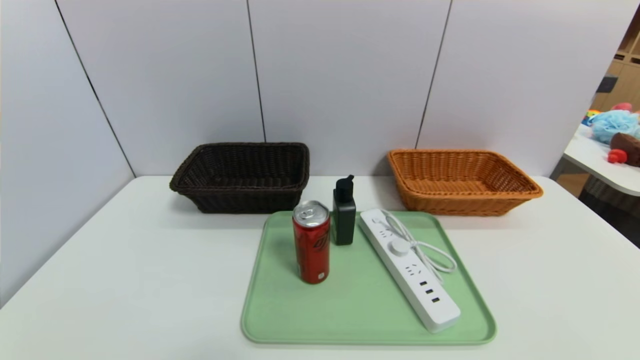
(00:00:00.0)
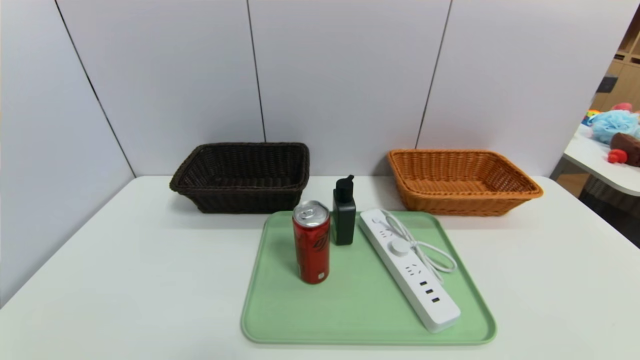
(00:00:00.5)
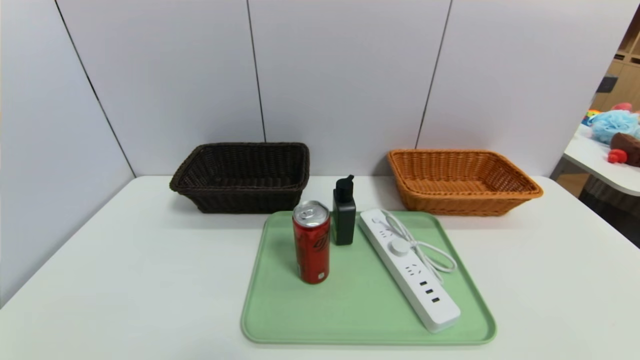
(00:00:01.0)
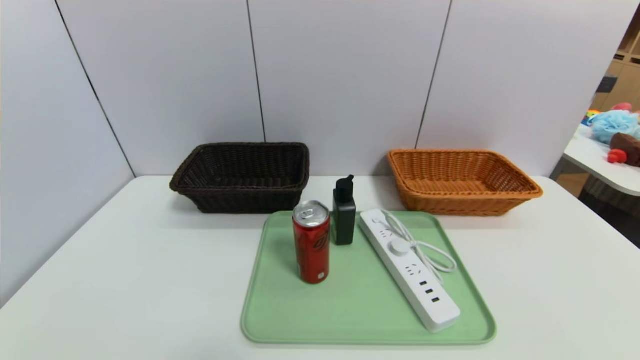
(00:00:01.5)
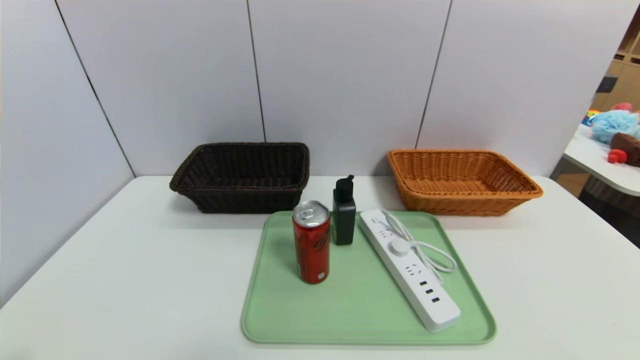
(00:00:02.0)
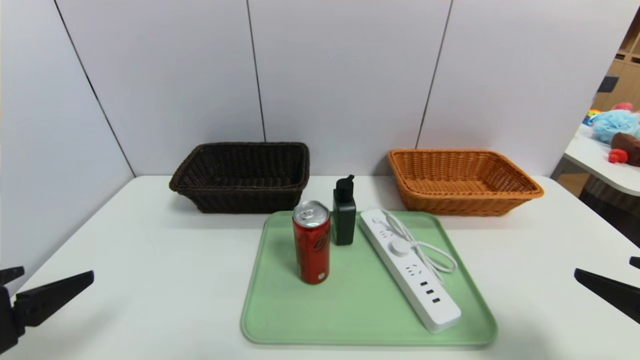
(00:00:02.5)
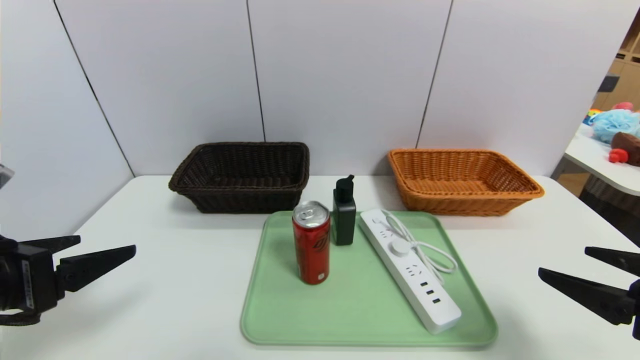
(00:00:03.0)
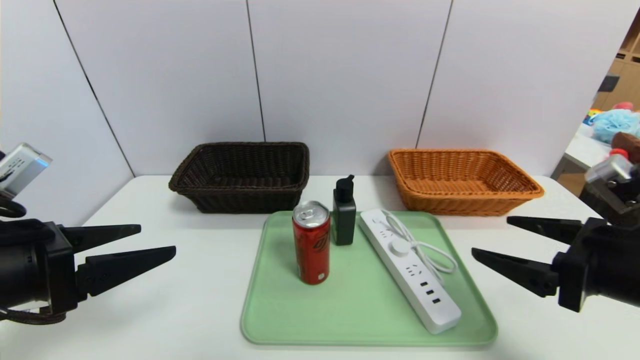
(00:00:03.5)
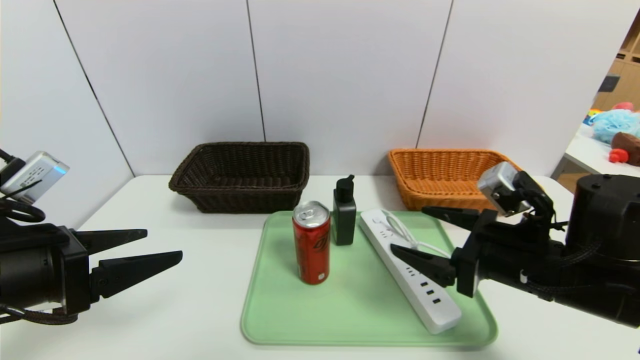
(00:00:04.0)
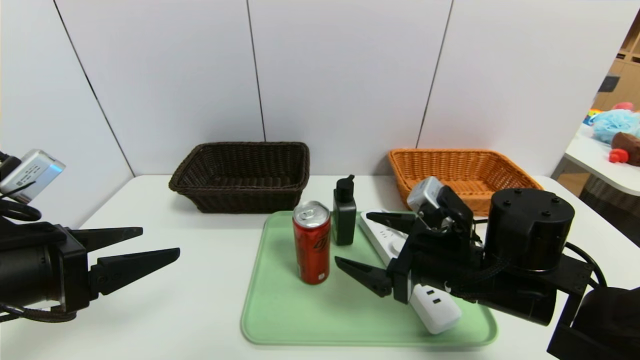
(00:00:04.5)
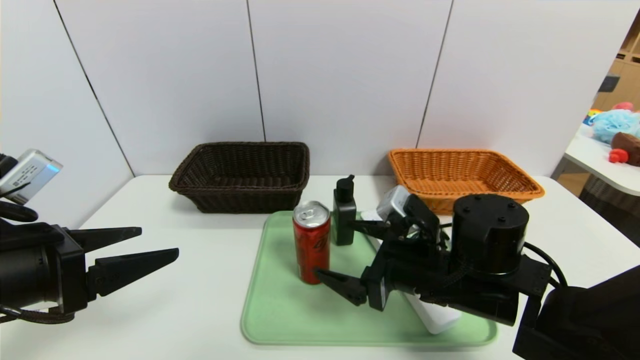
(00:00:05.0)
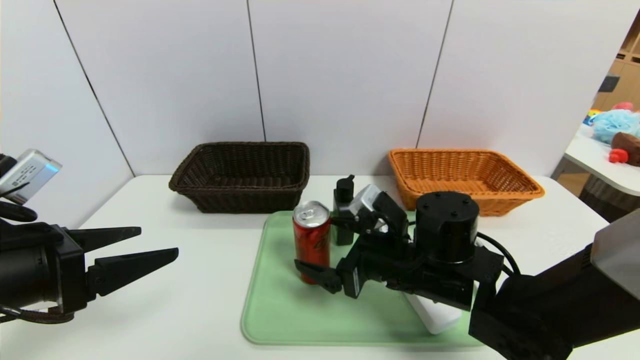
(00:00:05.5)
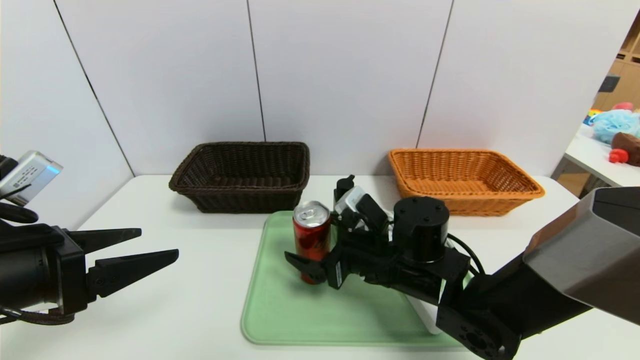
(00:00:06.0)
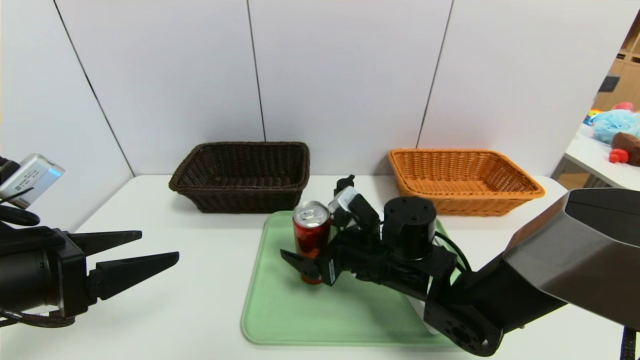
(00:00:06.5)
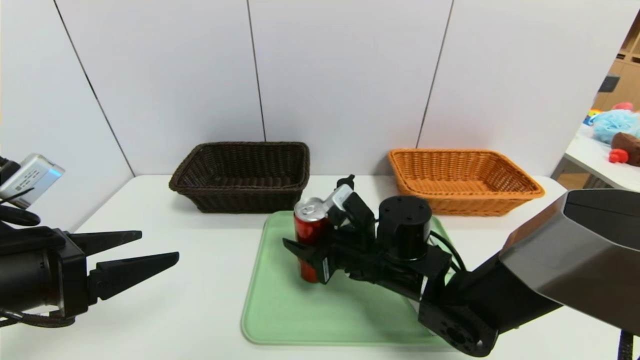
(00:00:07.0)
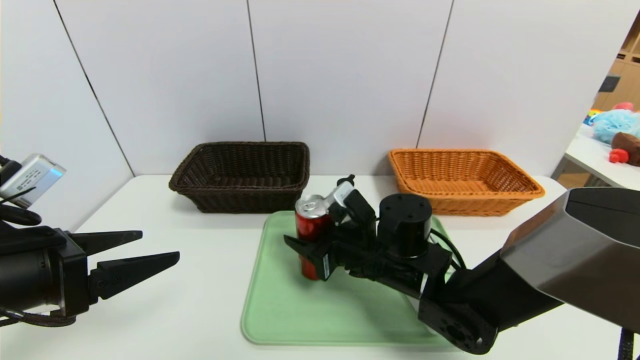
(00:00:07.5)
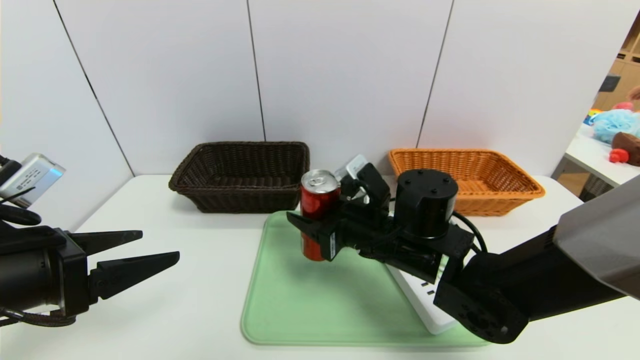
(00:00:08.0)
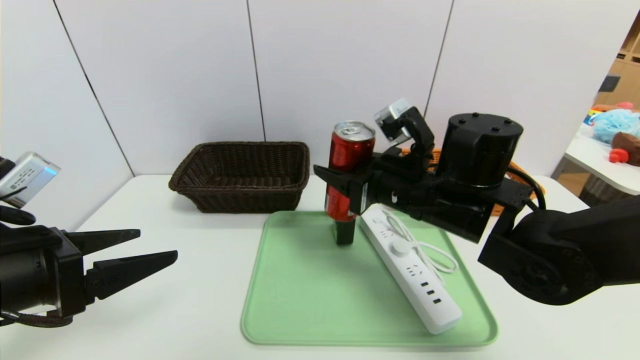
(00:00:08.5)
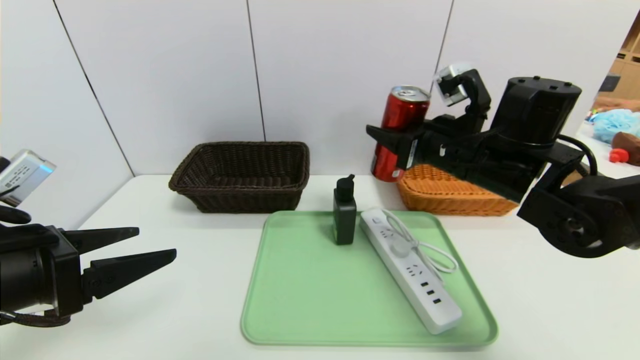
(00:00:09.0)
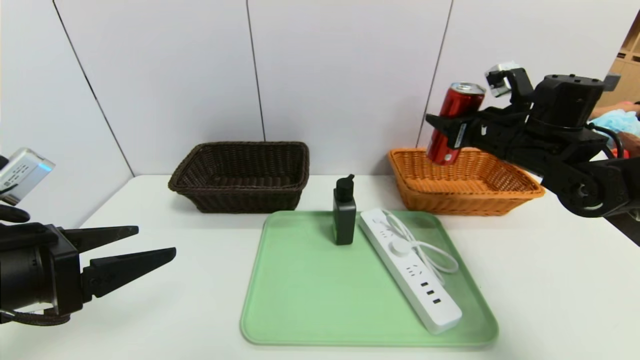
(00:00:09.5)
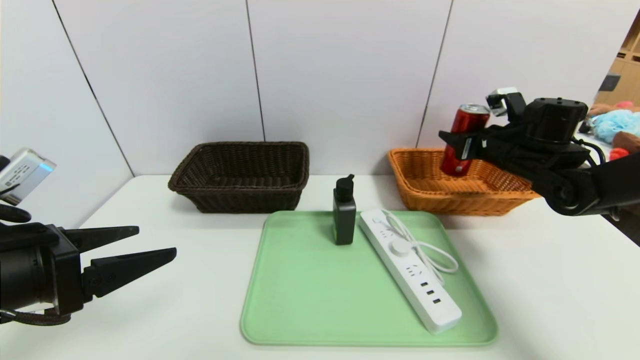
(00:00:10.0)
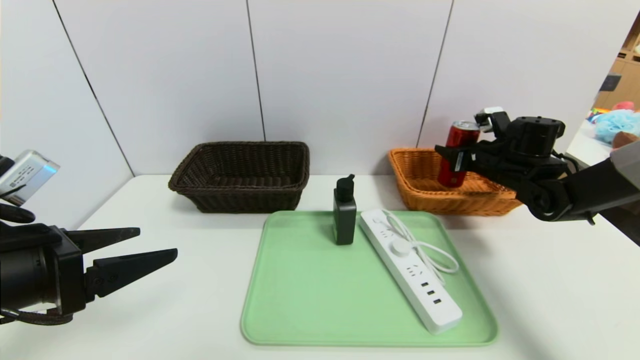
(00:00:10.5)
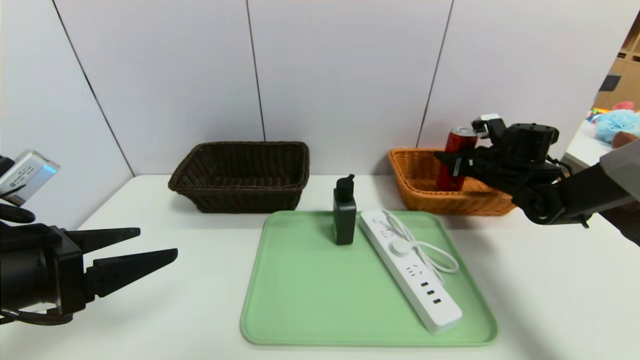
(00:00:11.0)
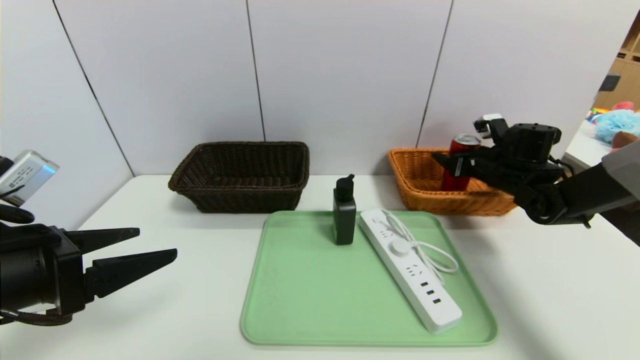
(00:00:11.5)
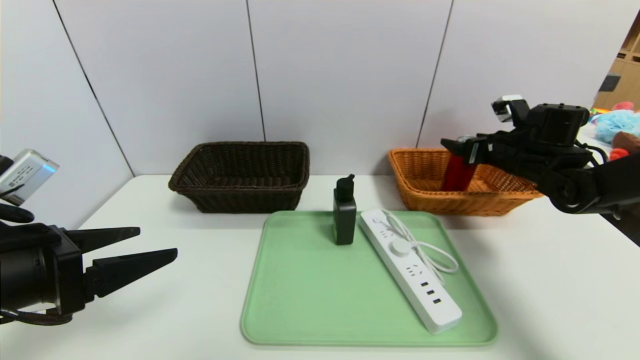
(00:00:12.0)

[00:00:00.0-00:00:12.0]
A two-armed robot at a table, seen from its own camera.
Task of the whole recording: place the food in the right basket with the right gripper, and place the non food items in the left basket with the left gripper.
Step, 00:00:00.0 to 00:00:11.5: Grasp the cookie and put it in the right basket.
00:00:02.0 to 00:00:04.0: The right gripper heads forward and to the left, covering about 25 cm; the left gripper shifts roughly 15 cm forward.
00:00:04.0 to 00:00:06.0: The right gripper is displaced to the left, forward and downward by some 15 cm.
00:00:06.0 to 00:00:08.0: The right gripper closes up.
00:00:08.0 to 00:00:10.0: The right gripper travels to the right and forward by some 25 cm.
00:00:10.0 to 00:00:12.0: The right gripper opens up.

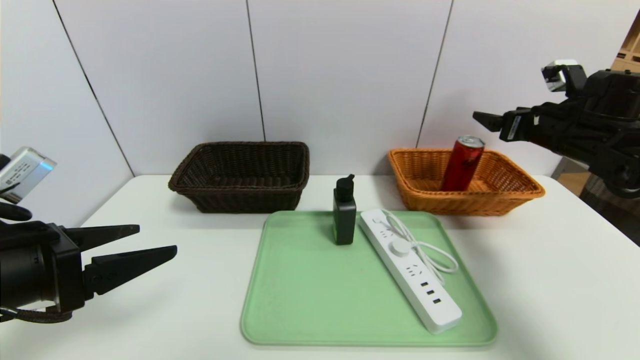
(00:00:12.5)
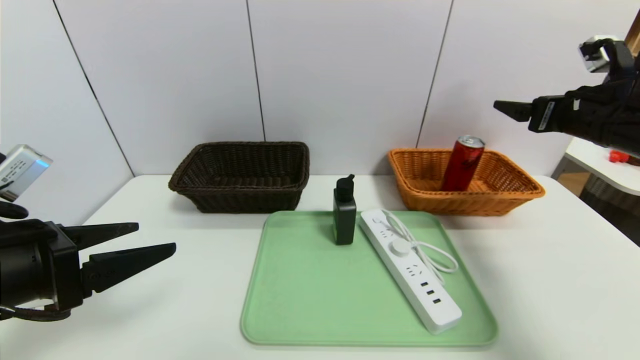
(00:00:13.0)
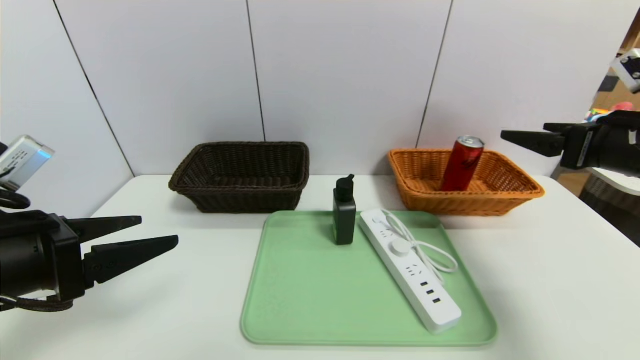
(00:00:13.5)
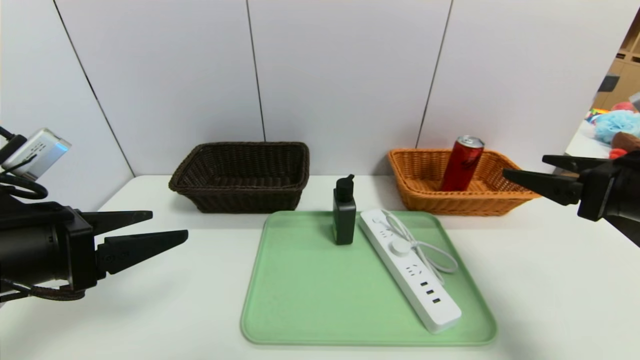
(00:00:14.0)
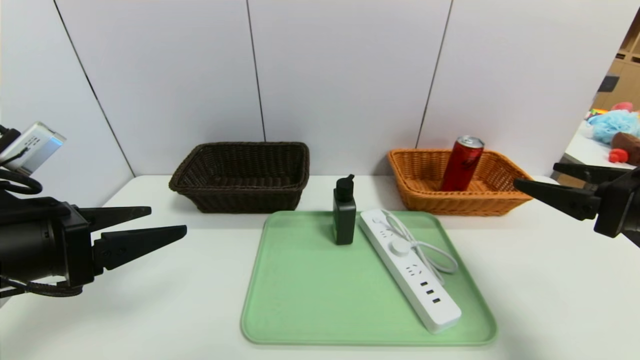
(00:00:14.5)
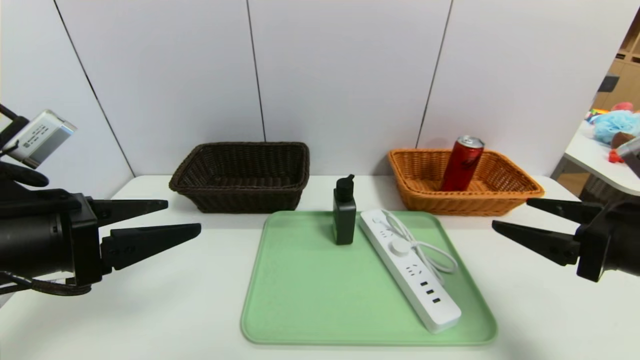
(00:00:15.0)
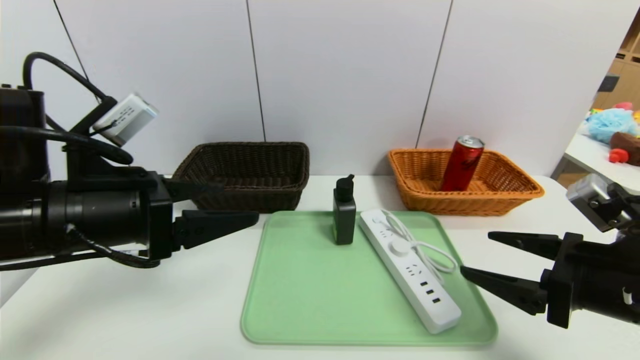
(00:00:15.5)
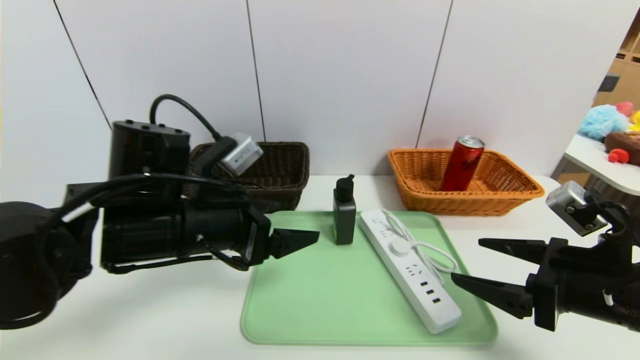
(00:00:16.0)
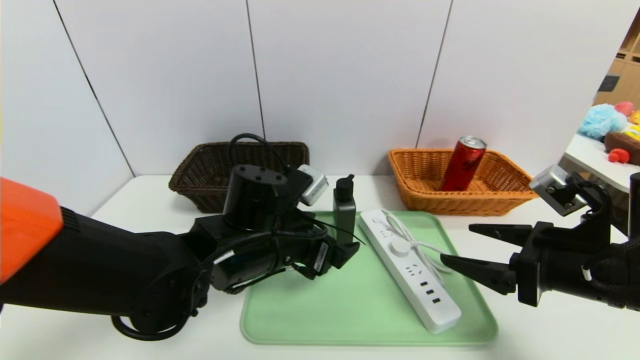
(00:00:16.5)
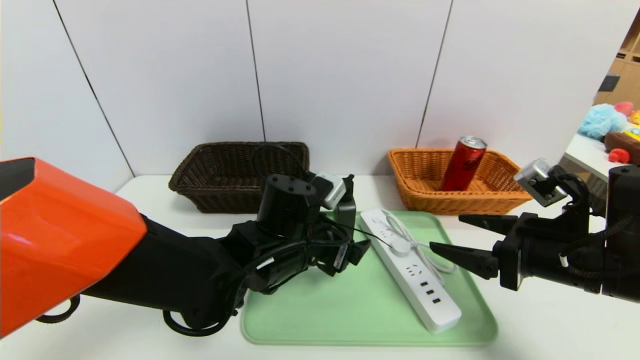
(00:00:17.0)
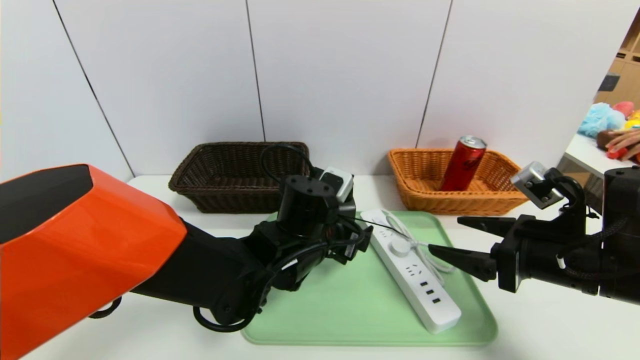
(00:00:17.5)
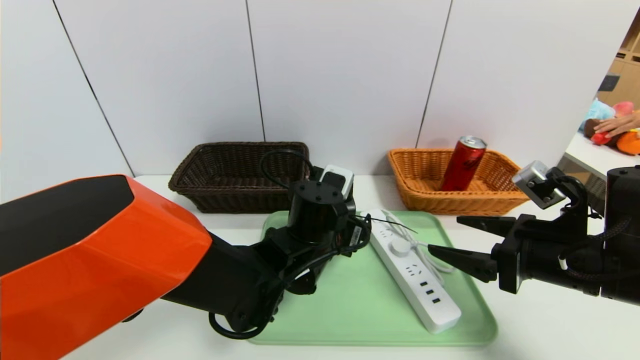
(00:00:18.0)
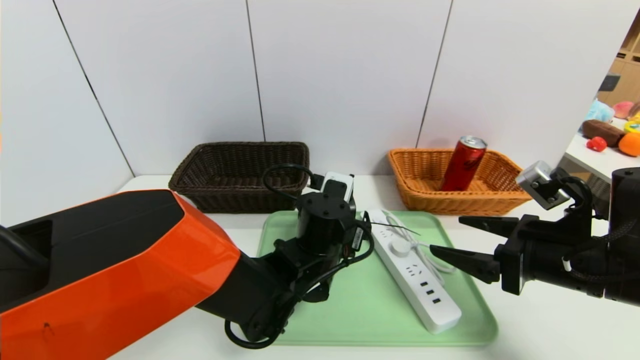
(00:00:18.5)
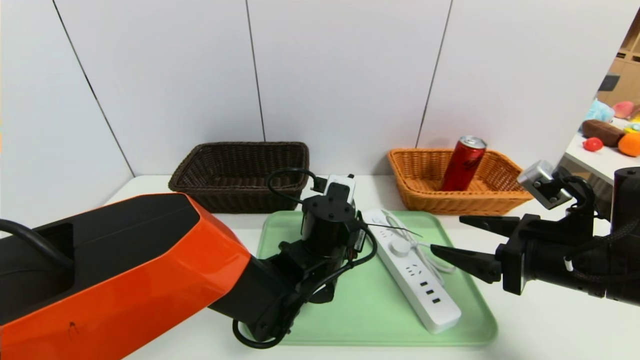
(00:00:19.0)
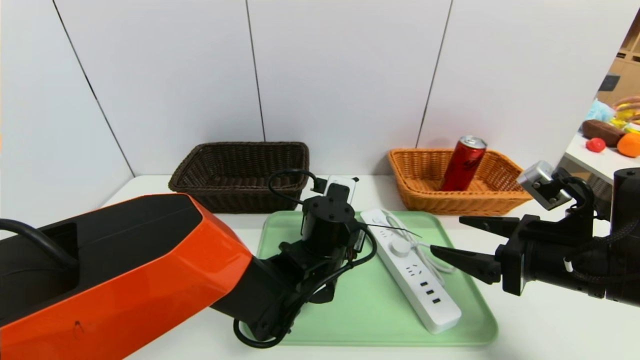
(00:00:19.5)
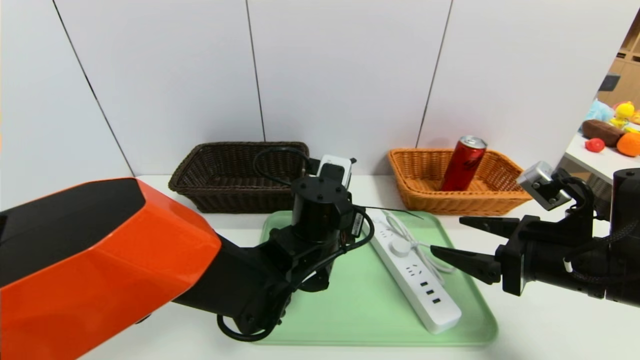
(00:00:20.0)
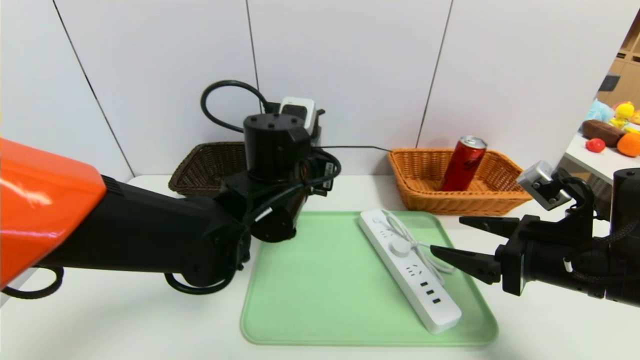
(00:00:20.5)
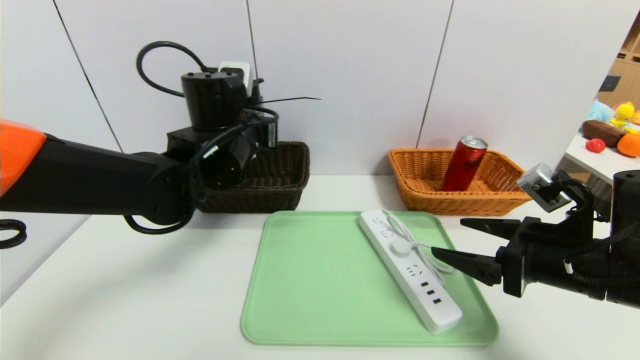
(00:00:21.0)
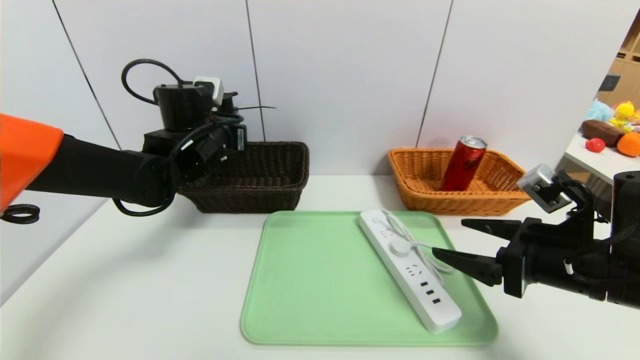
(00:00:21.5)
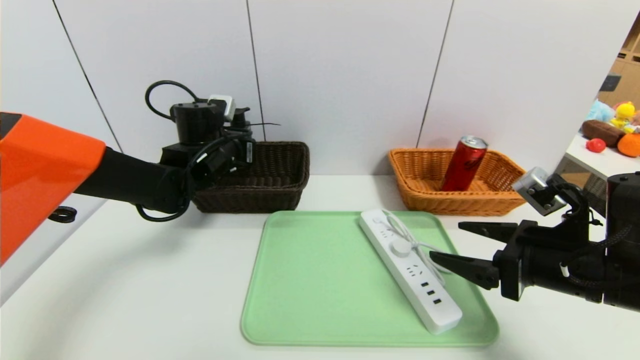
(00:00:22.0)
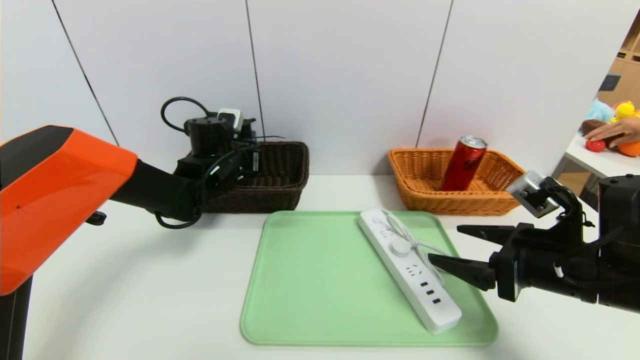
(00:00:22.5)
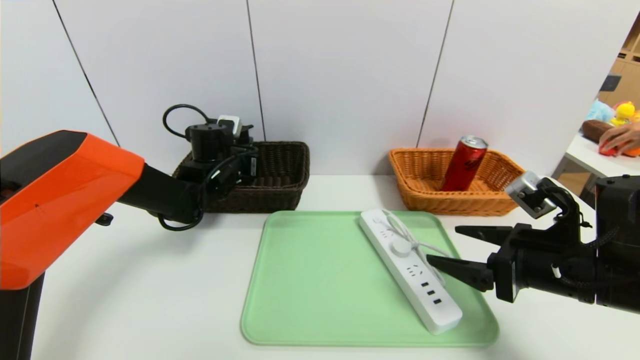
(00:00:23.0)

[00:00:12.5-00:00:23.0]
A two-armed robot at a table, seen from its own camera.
Task of the whole recording: place the food in the right basket with the right gripper, and place the non food items in the left basket with the left gripper.
00:00:12.5 to 00:00:14.5: The right gripper shifts roughly 20 cm backward.
00:00:14.5 to 00:00:16.5: The left gripper moves to the right, forward and downward, roughly 25 cm; the right gripper goes some 10 cm downward and to the left.
00:00:16.5 to 00:00:19.0: The left gripper moves to the right and downward, roughly 10 cm, and closes up.
00:00:19.0 to 00:00:21.0: The left gripper heads upward, to the left and forward, covering some 20 cm, and closes up.
00:00:21.0 to 00:00:23.0: The left gripper shifts approximately 15 cm downward, forward and to the left.
